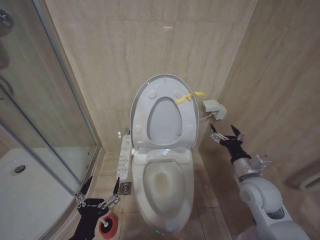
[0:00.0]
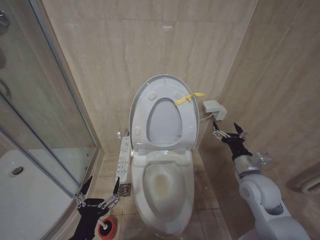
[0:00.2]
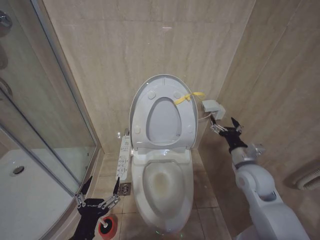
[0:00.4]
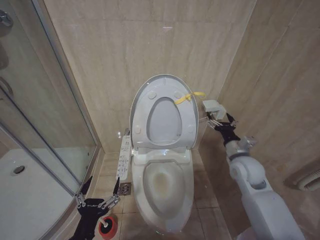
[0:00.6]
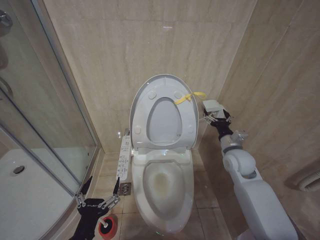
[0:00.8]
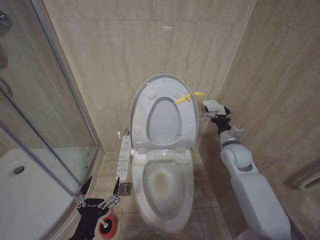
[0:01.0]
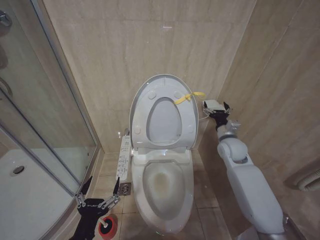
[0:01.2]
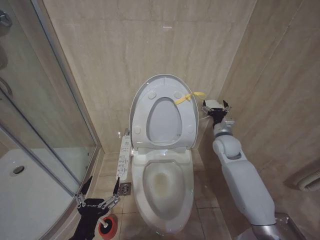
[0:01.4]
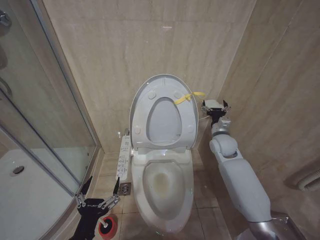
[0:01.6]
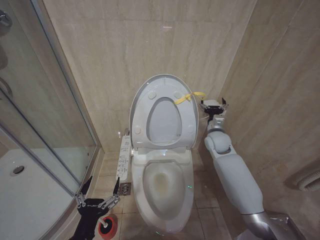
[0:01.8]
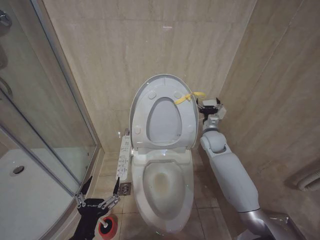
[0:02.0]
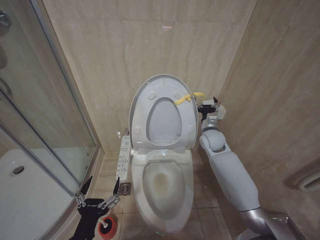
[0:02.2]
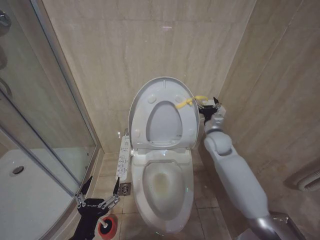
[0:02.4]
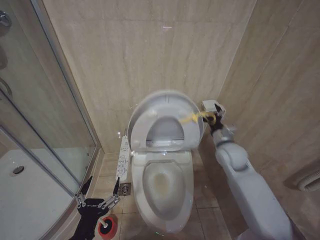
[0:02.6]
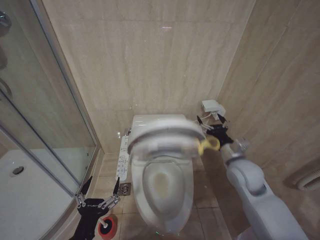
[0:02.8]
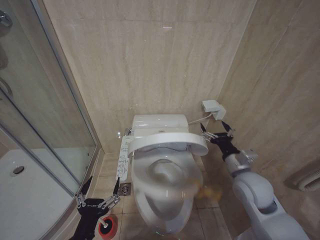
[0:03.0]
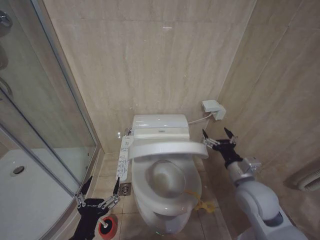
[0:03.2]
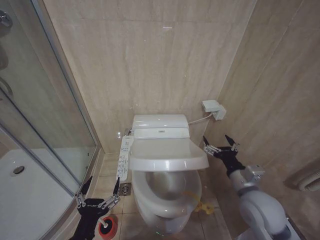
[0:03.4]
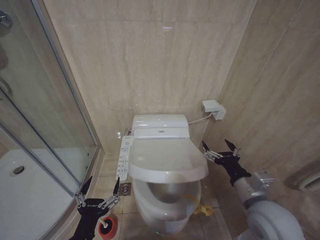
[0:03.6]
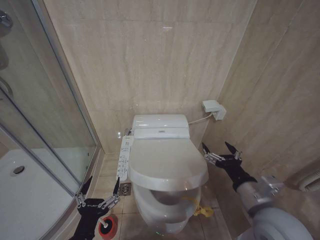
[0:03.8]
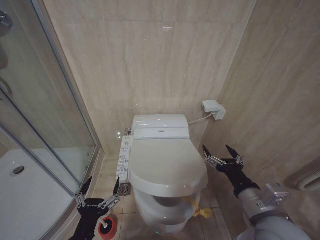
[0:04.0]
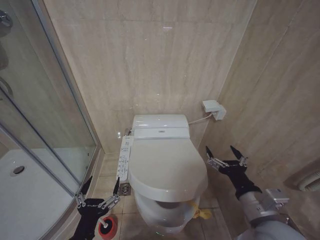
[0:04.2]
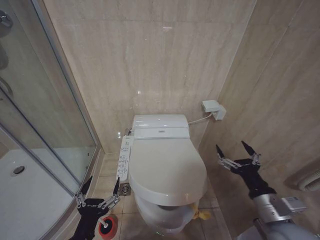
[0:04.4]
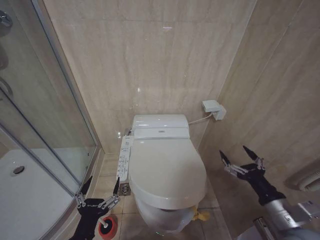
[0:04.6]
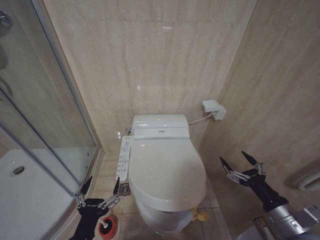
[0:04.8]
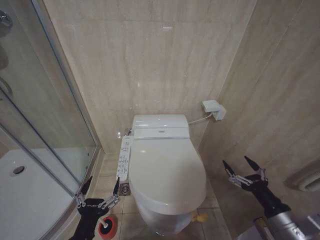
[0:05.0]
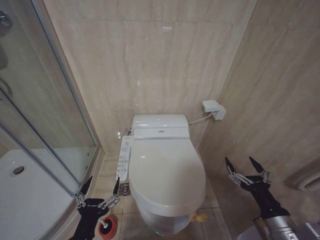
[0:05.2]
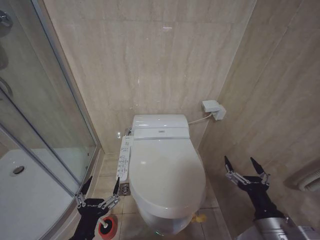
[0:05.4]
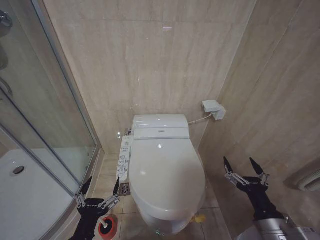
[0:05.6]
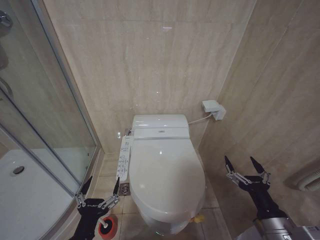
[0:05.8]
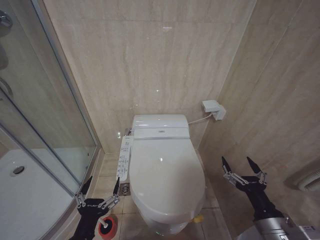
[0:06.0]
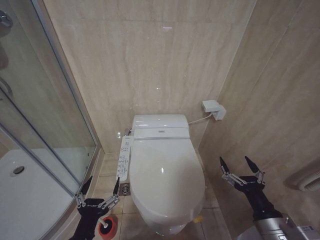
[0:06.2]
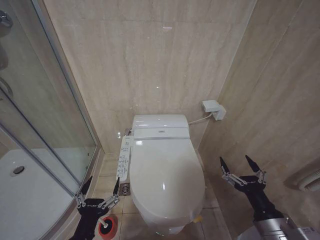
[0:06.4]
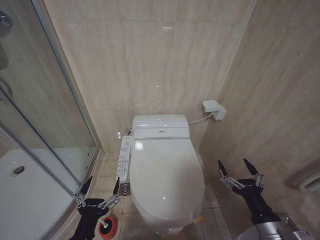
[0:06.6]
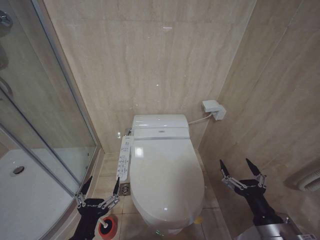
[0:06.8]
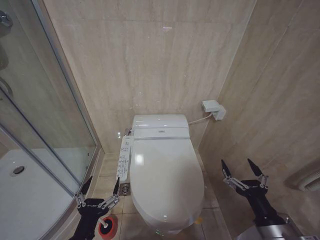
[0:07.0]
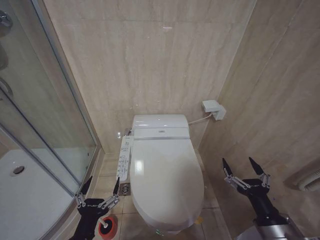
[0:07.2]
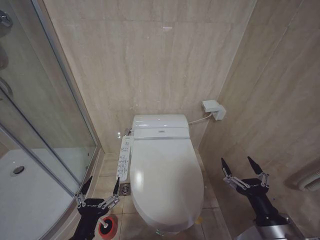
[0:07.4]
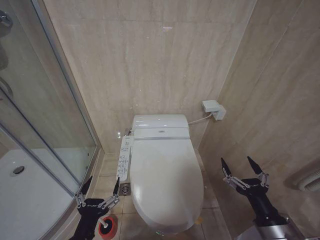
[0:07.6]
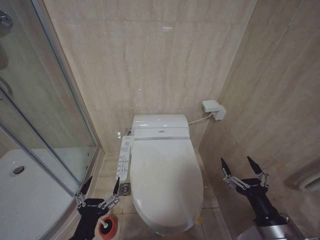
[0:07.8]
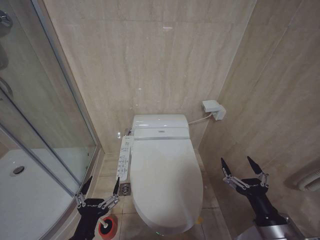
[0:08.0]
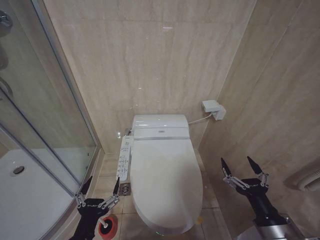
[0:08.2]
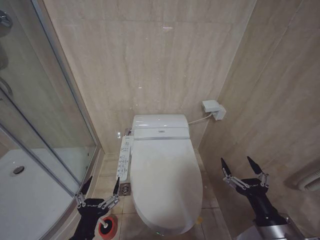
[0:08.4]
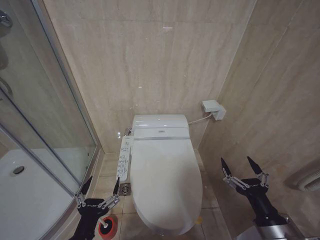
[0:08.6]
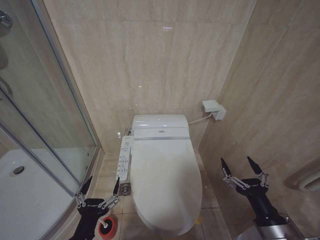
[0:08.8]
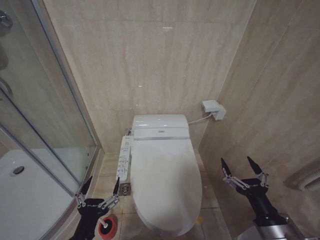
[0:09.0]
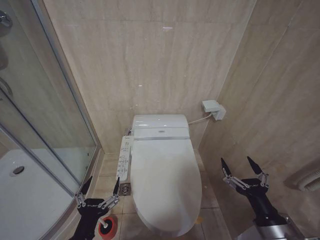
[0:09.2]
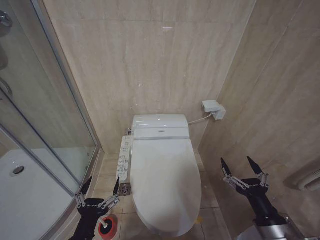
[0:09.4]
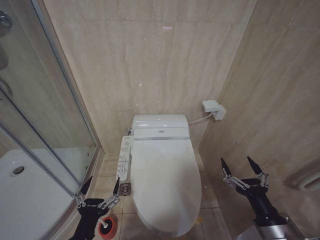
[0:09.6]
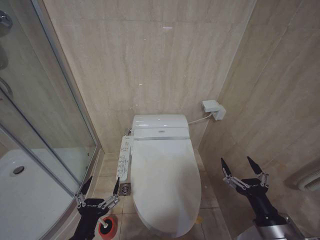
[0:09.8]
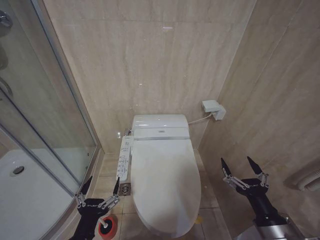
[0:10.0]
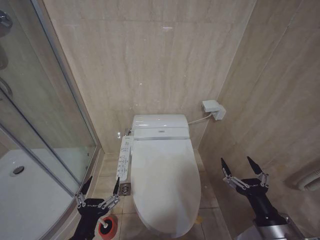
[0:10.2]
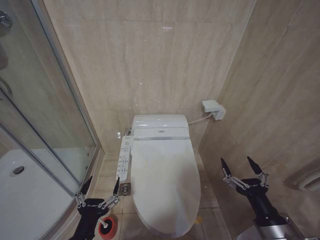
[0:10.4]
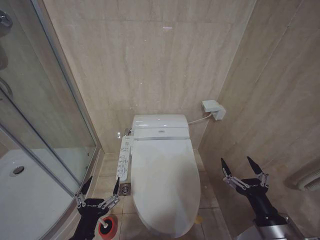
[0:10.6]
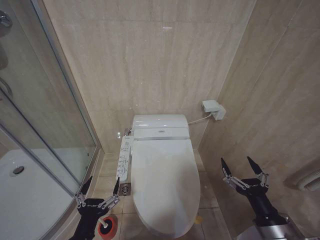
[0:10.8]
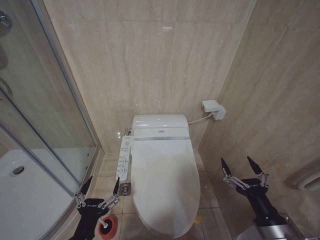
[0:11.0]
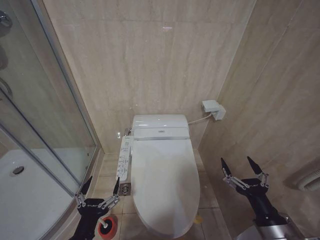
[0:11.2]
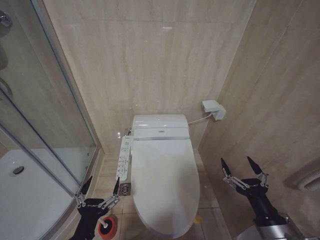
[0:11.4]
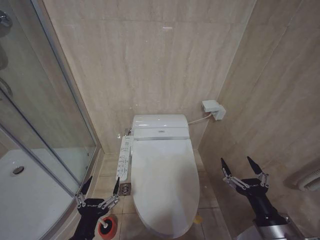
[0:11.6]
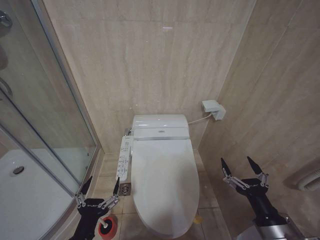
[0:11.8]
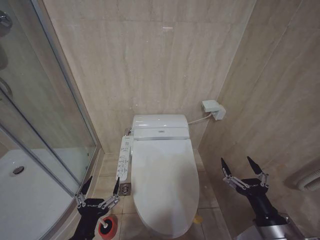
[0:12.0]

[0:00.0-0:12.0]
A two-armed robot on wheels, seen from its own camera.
Task of the whole recording: Open the toilet lid, clean the toilet bowl with a toilet brush, close the toilet lid, and flush.
0:00.0 to 0:01.6: The right gripper is displaced forward by approximately 20 cm.
0:01.6 to 0:03.0: The right gripper heads backward, covering approximately 15 cm.
0:03.0 to 0:04.4: The right gripper heads backward, covering roughly 15 cm.
0:04.4 to 0:06.0: The right gripper moves some 10 cm to the right and comes back.
0:06.0 to 0:07.6: The grippers make only small movements.
0:07.6 to 0:12.0: The two grippers keep their place.

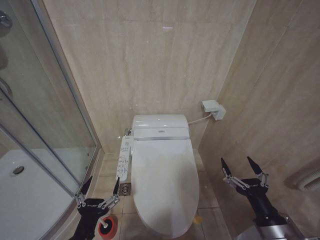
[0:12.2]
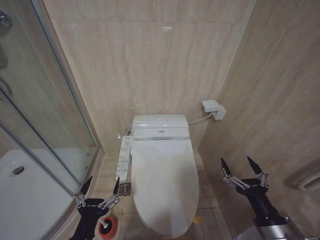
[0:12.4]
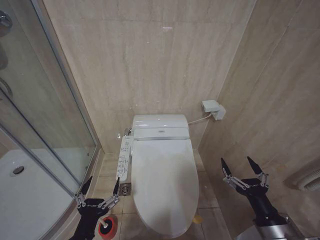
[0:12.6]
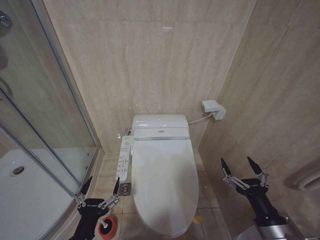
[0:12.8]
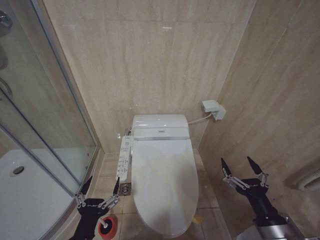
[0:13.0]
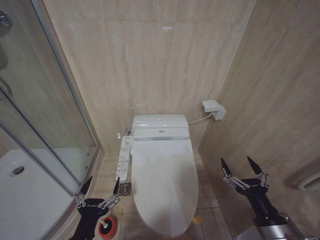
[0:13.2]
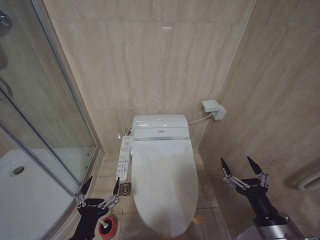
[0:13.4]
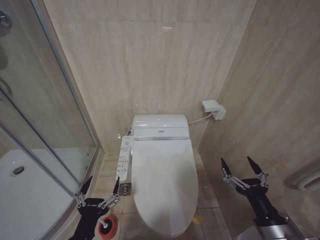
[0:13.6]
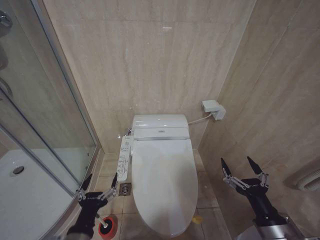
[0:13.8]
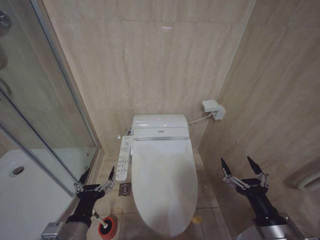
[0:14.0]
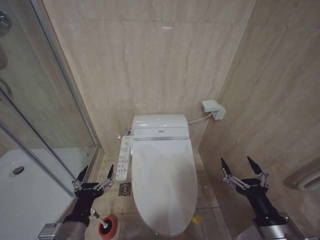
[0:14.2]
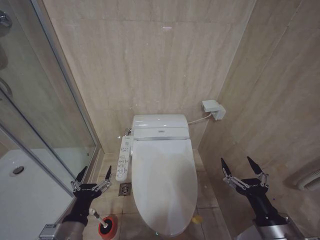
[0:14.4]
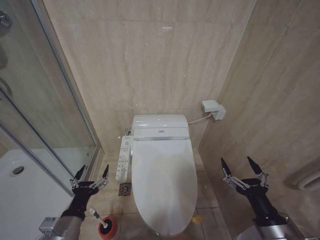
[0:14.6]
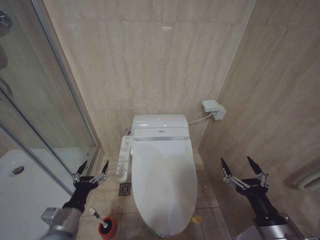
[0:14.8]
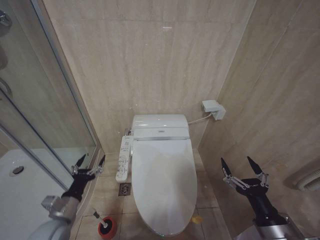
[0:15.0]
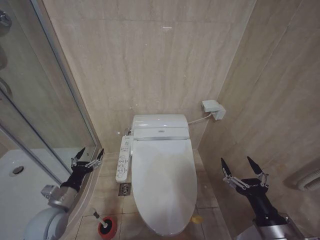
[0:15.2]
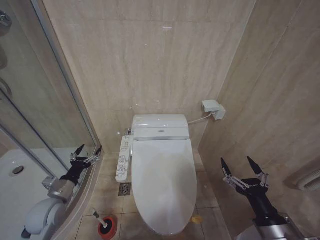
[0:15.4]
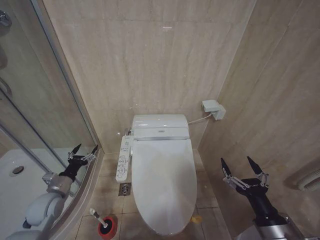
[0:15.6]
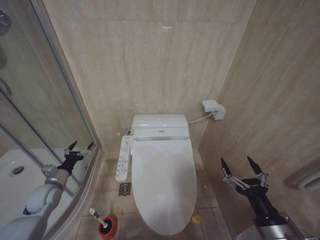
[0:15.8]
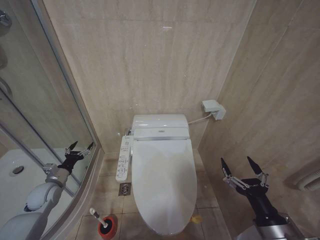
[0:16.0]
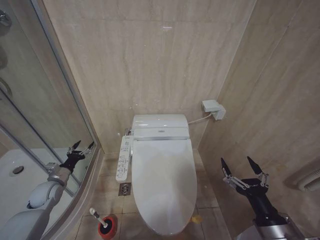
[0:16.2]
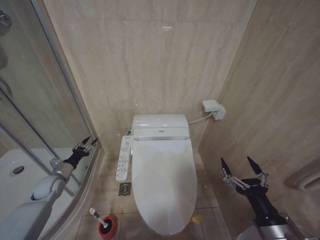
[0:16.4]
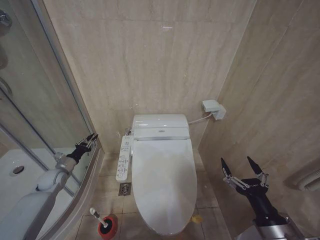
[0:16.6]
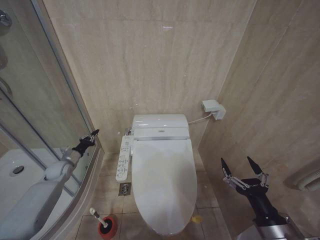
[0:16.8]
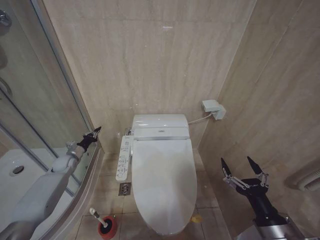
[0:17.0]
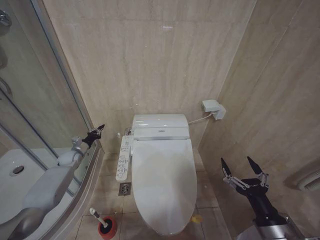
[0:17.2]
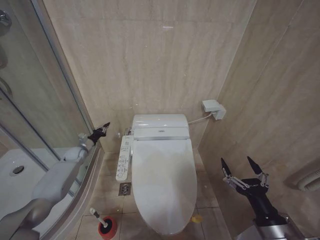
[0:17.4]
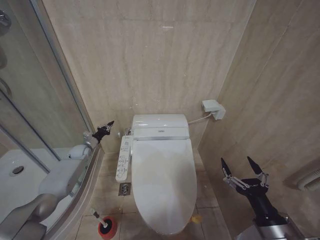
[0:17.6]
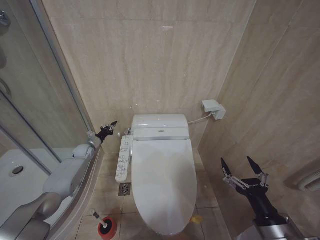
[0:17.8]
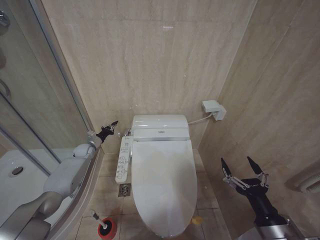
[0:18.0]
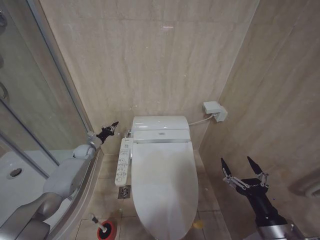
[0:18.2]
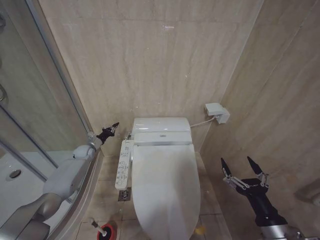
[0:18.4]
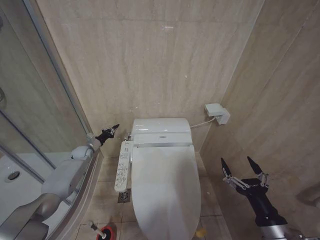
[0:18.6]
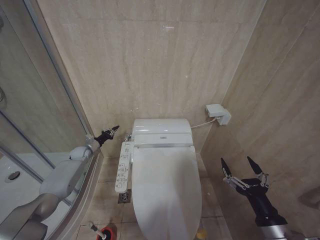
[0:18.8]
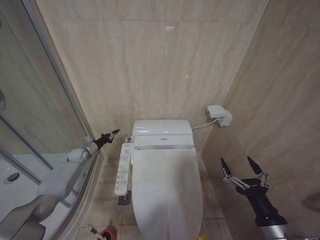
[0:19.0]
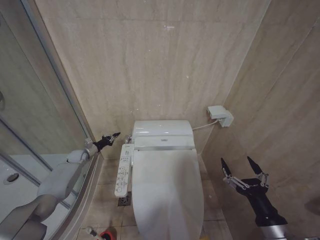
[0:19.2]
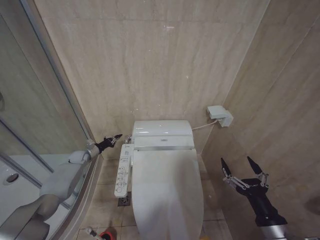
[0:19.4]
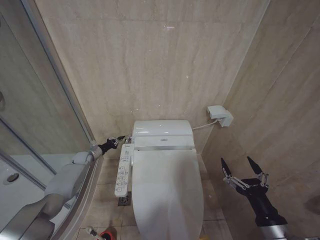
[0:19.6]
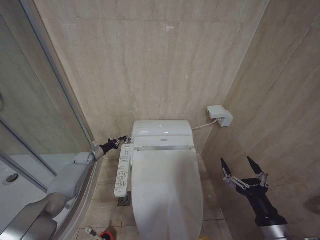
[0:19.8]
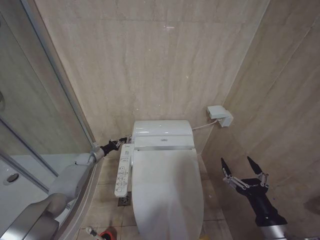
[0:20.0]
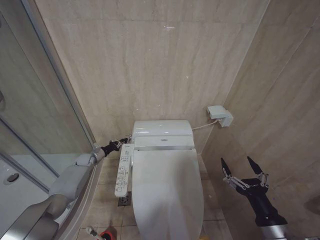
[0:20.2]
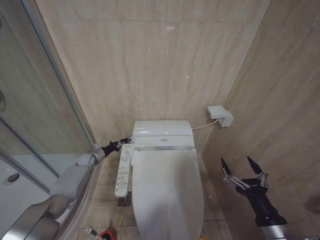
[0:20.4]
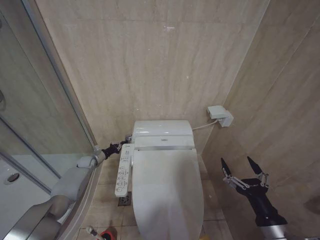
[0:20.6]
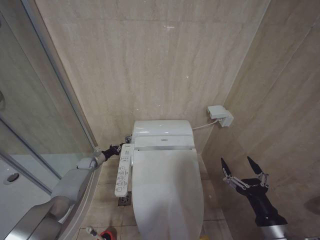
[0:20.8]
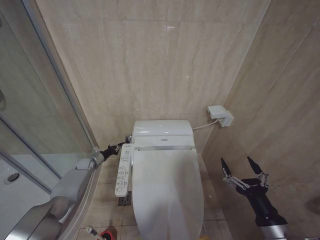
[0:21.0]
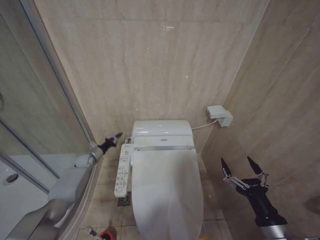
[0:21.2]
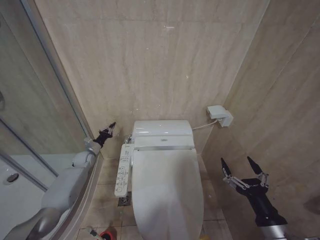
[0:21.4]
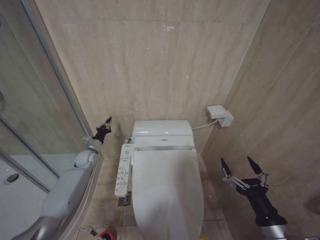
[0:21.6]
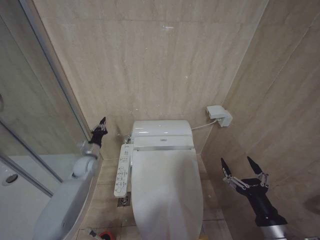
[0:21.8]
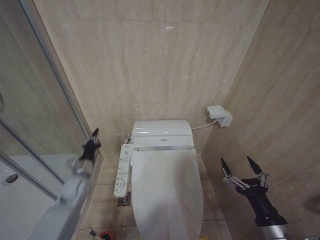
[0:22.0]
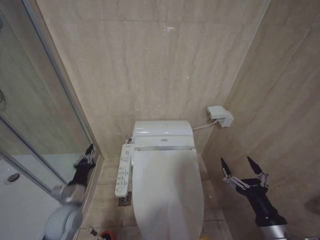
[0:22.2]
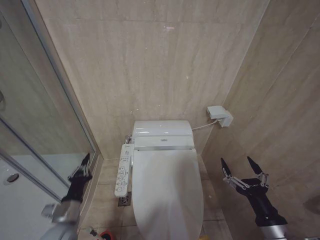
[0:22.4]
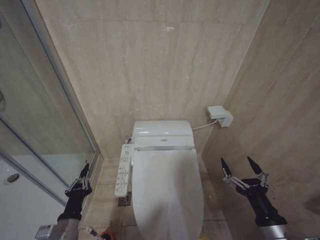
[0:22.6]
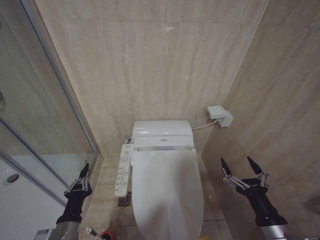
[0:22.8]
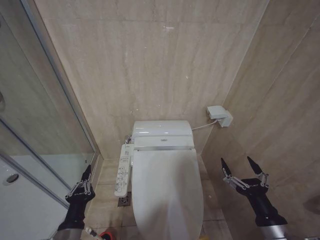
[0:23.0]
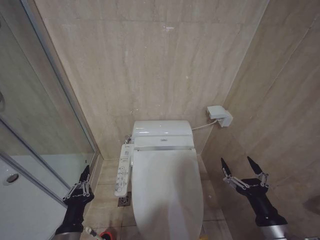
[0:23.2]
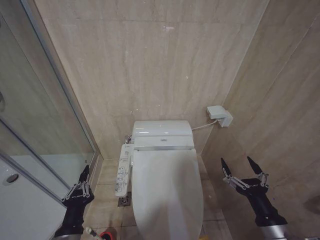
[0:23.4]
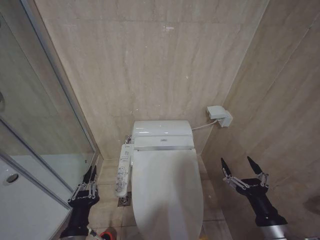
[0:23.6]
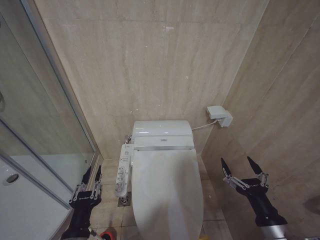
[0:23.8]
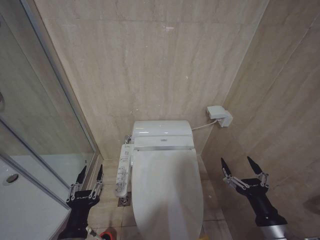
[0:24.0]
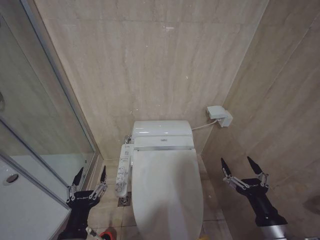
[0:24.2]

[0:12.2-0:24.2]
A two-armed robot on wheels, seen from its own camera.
Task of the whole recording: Open the toilet lid, clean the toilet bowl with a toilet brush, close the toilet lid, and flush.
0:12.2 to 0:13.8: Neither gripper changes place.
0:13.8 to 0:15.2: The left gripper goes approximately 20 cm forward and to the left.
0:15.2 to 0:16.6: The left gripper is displaced forward and to the left by roughly 20 cm, and closes.
0:16.6 to 0:18.2: The left gripper shifts approximately 15 cm forward and to the right, and closes its fingers.
0:18.2 to 0:19.8: The left gripper moves downward, some 5 cm.
0:19.8 to 0:21.2: There are only small adjustments of the grippers.
0:21.2 to 0:22.6: The left gripper travels backward by roughly 35 cm.
0:22.6 to 0:24.2: The left gripper shifts about 10 cm backward, upward and to the right, and opens its fingers.
